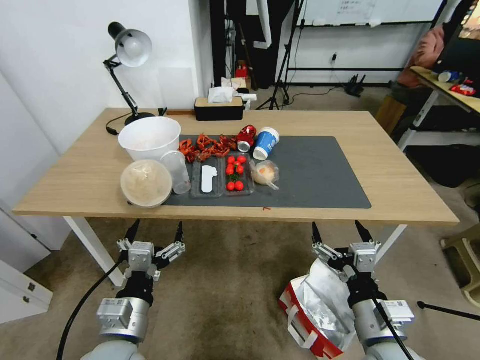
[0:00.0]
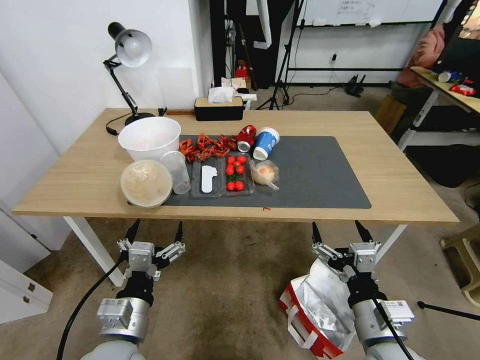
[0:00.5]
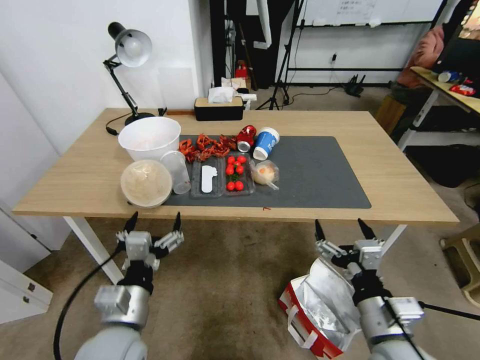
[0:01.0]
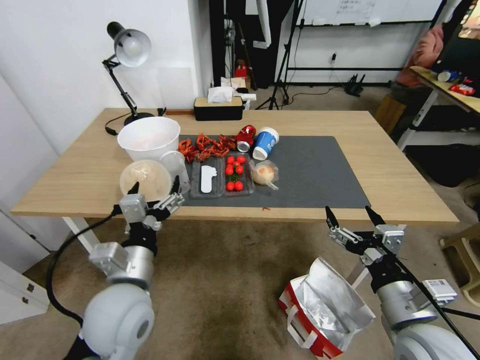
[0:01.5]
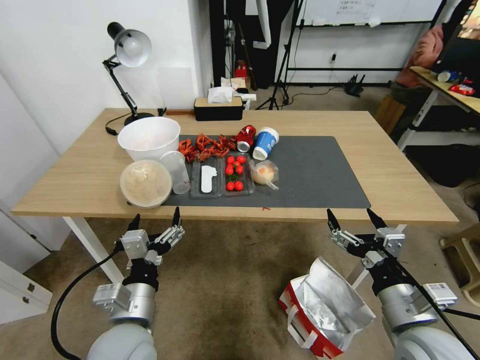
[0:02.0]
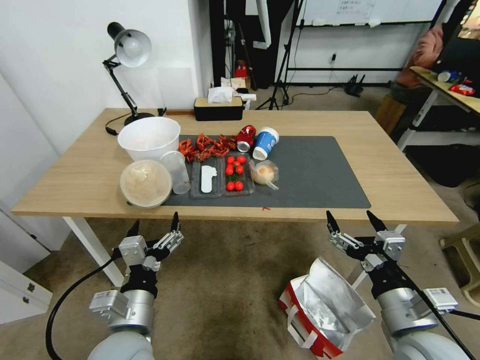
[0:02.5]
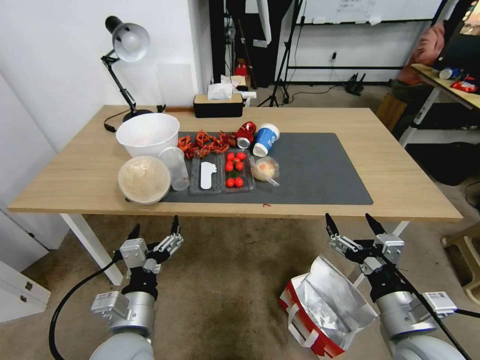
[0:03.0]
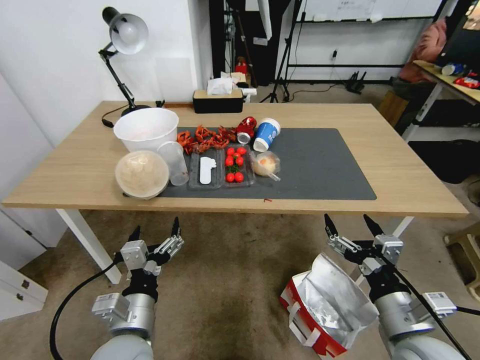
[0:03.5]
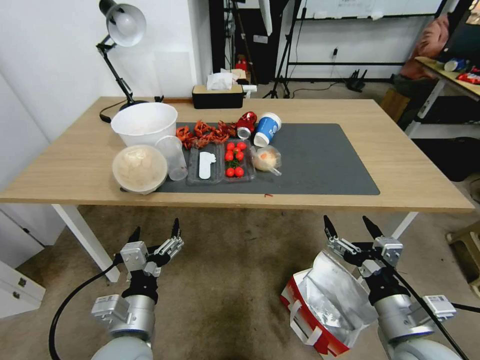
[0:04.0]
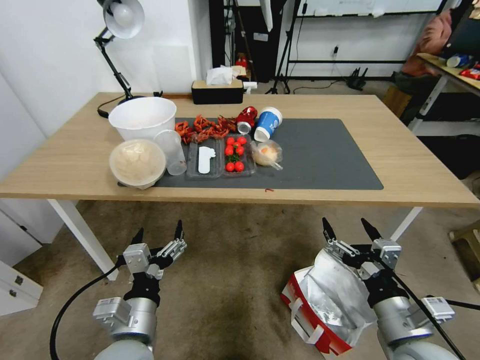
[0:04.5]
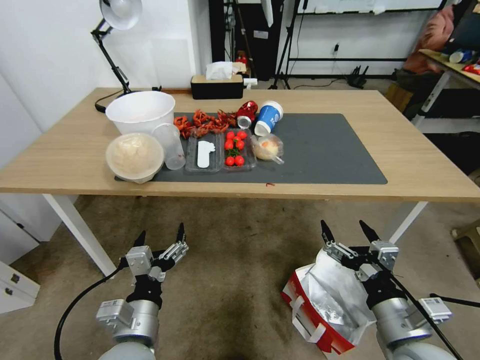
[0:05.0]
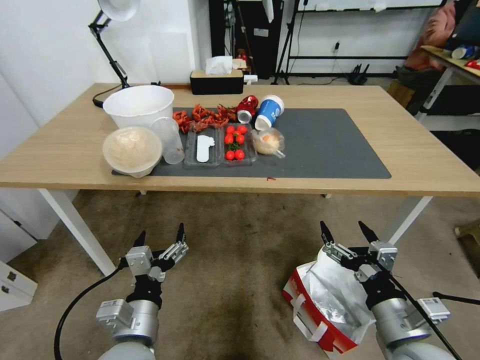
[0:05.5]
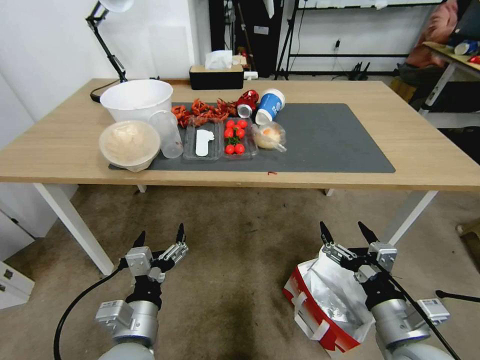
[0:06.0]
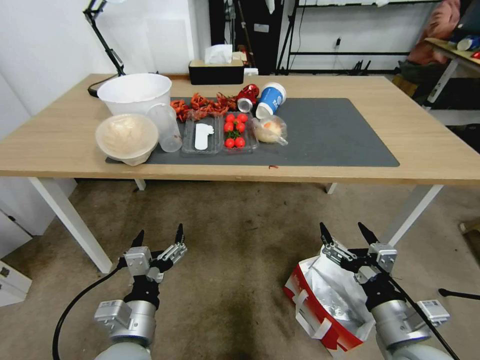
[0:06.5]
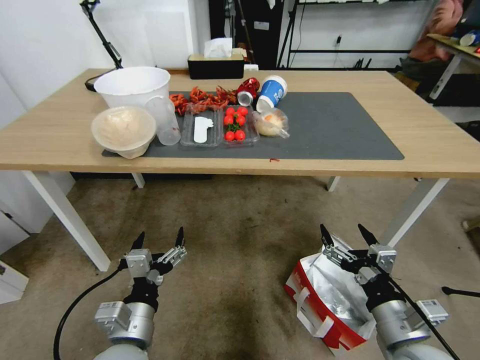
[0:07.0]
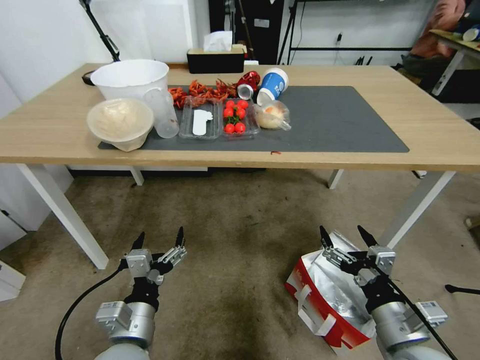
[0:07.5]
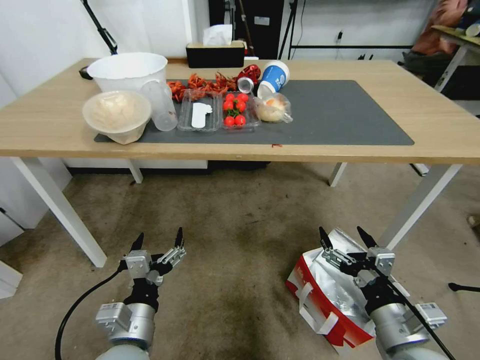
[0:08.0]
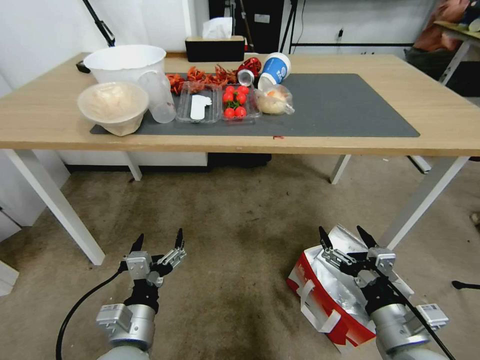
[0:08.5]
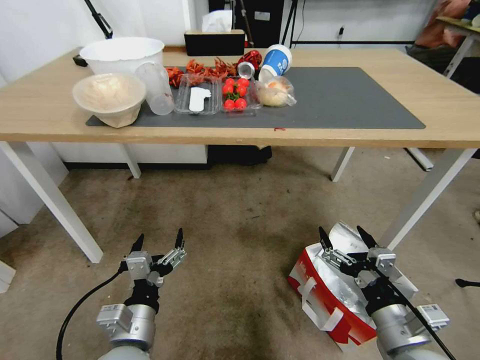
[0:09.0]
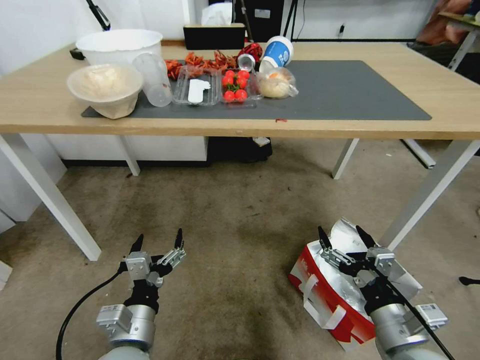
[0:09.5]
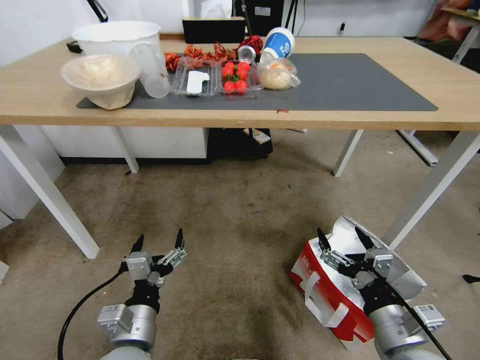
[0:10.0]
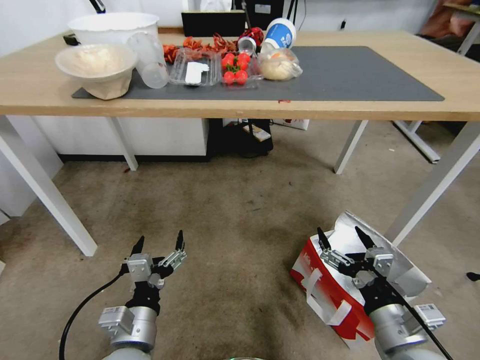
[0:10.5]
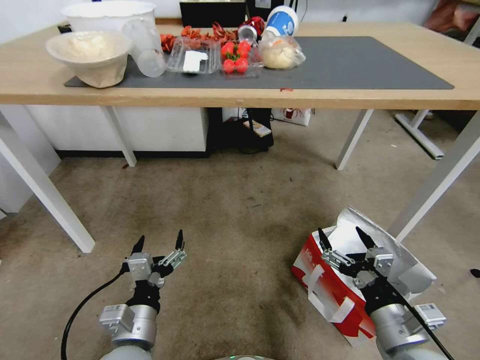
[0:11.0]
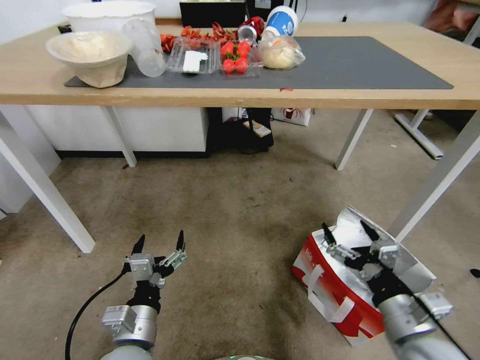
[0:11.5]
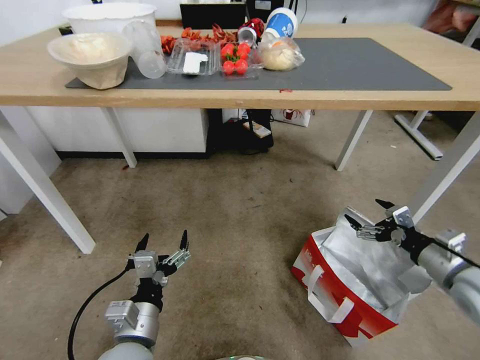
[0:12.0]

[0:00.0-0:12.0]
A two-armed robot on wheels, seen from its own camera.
Task of the whole recording: Pick up the food delivery bag from the floor and place it on the table.
0:10.0 to 0:12.0: The right gripper is displaced to the right and forward by roughly 20 cm.

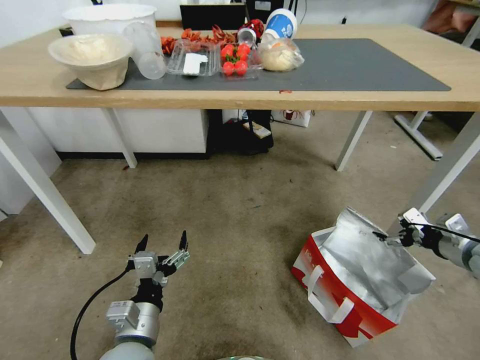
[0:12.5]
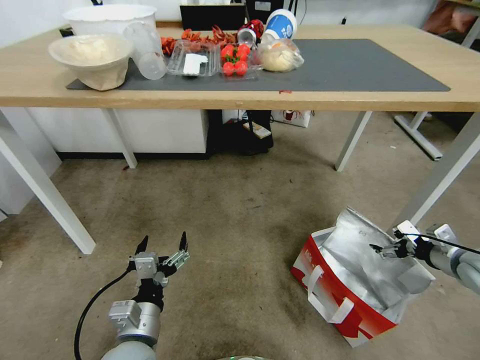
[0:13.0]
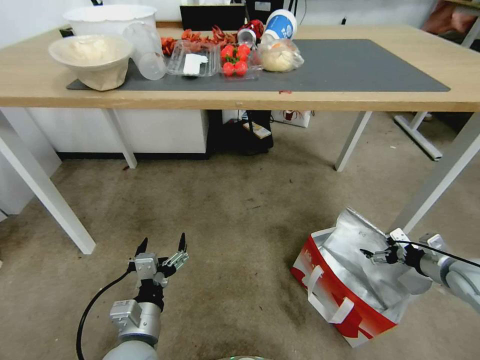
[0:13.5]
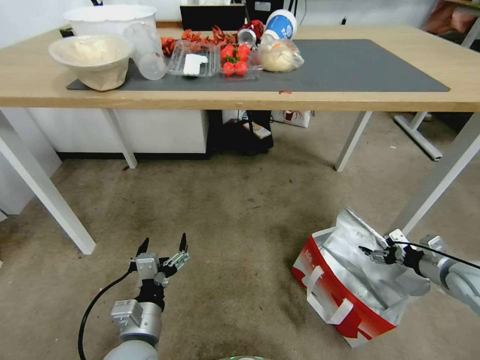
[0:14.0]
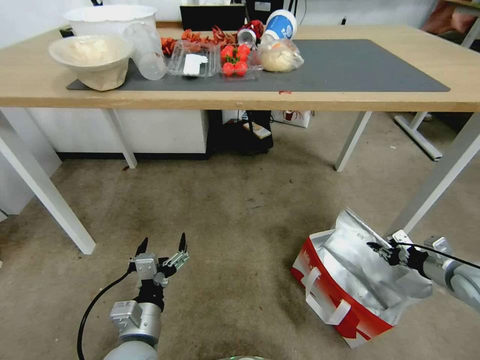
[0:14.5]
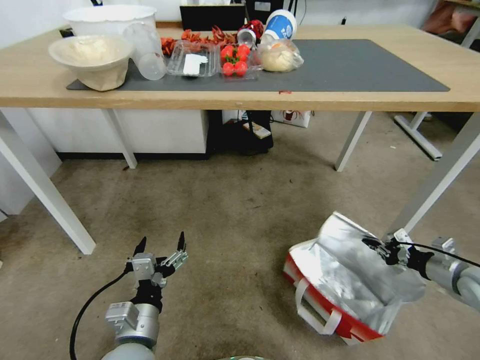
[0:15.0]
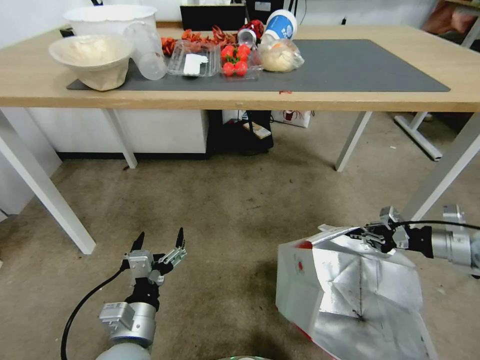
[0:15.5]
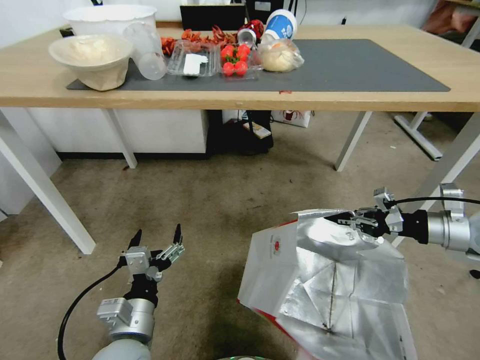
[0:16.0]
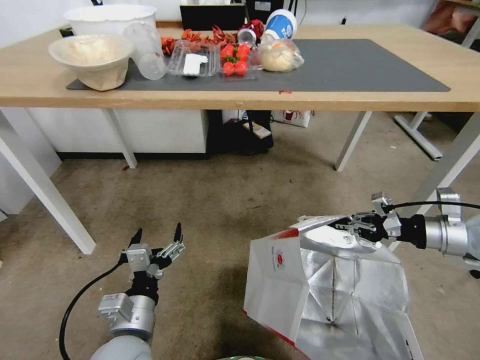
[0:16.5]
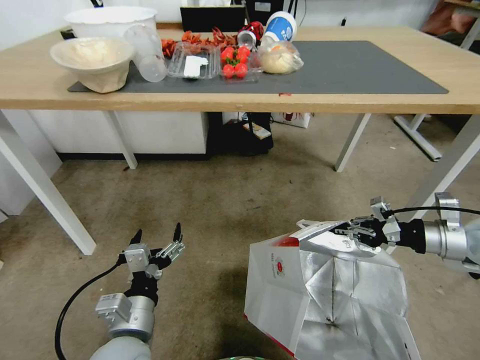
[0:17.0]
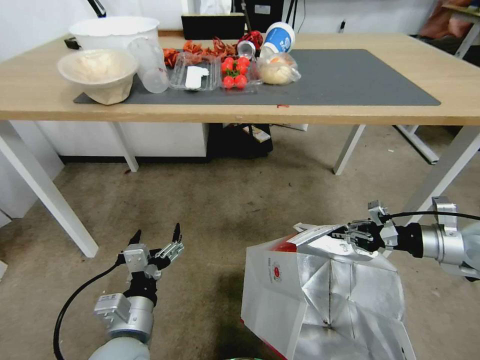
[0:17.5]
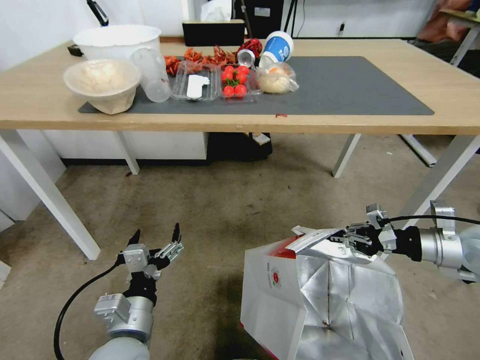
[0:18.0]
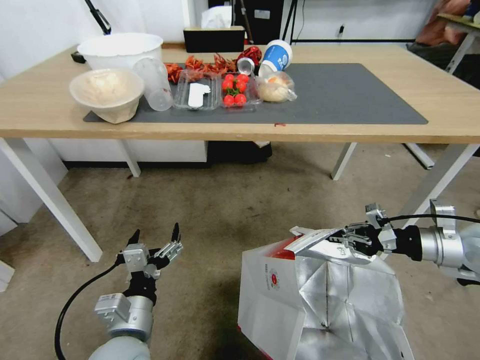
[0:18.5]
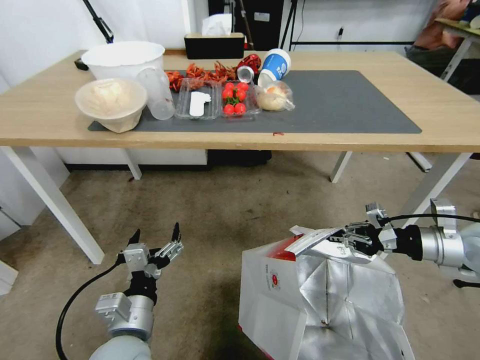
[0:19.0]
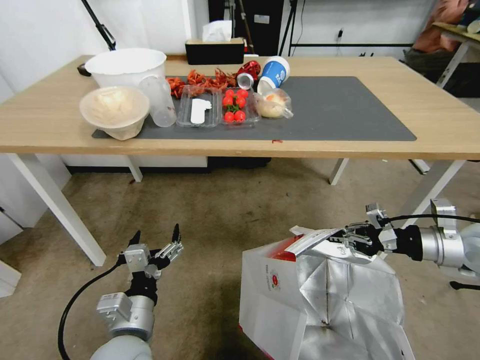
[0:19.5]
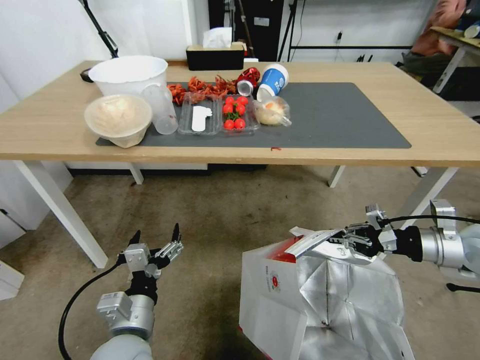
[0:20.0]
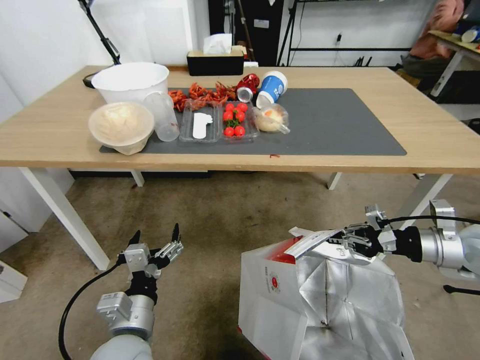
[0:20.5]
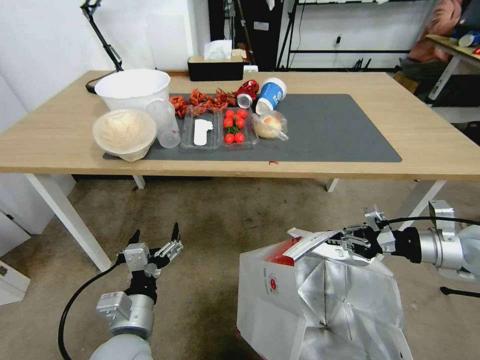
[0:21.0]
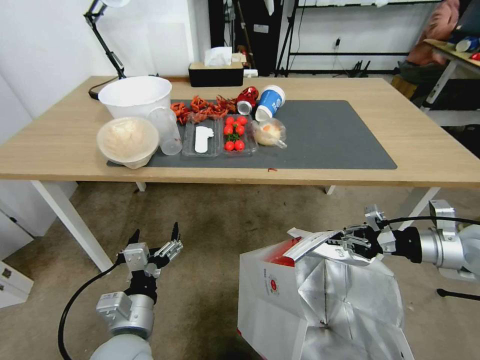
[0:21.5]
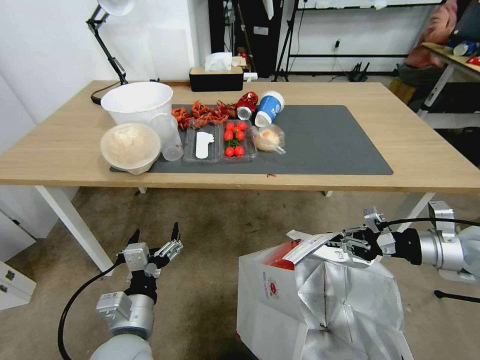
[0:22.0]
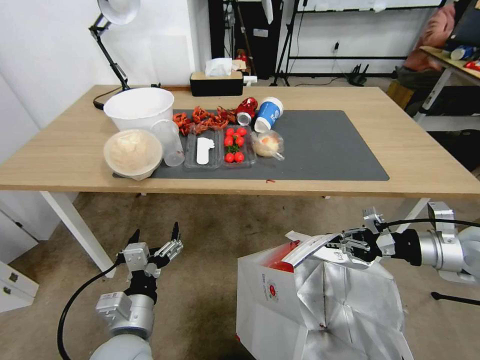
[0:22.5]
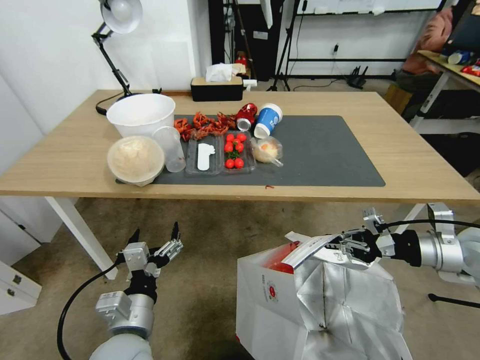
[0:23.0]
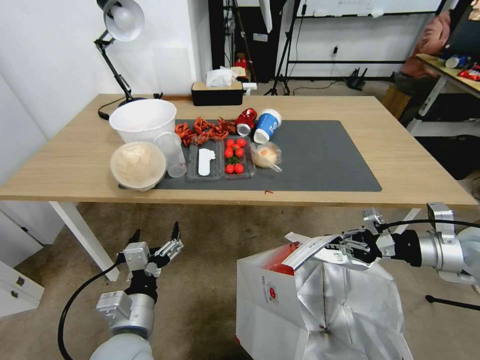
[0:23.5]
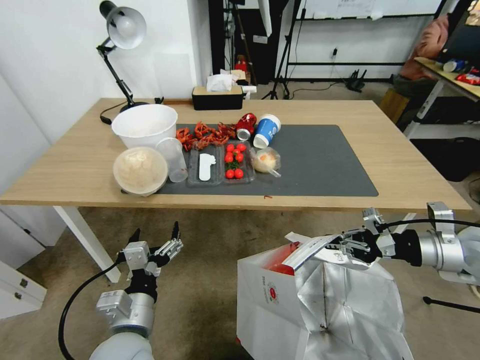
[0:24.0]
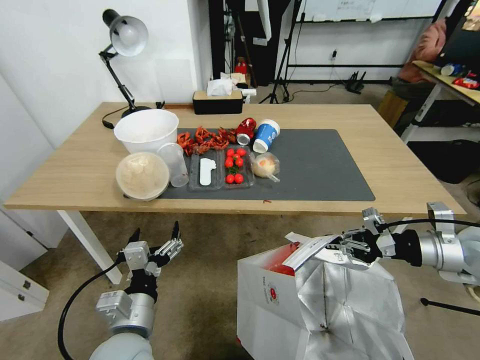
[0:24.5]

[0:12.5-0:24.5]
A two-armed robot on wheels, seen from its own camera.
Task of the whole recording: Pick up the food delivery bag from the floor and place it on the table.
0:12.5 to 0:14.5: The right gripper heads downward, covering about 10 cm, and closes up.
0:14.5 to 0:16.5: The right gripper heads upward and to the left, covering about 15 cm.

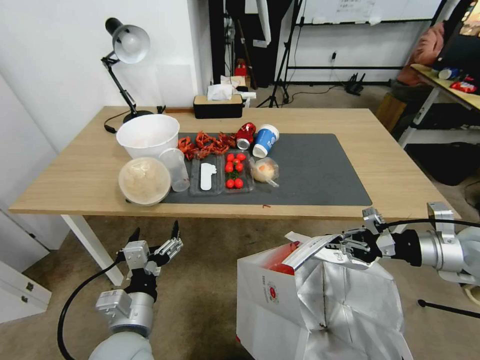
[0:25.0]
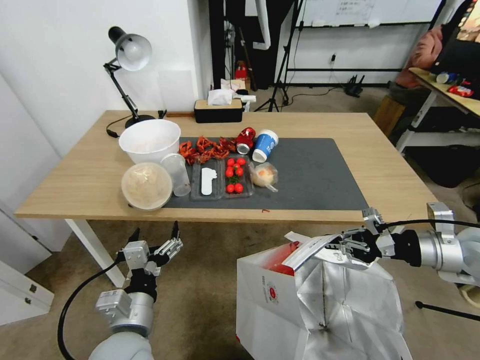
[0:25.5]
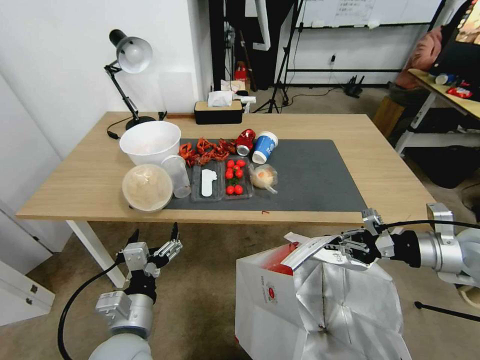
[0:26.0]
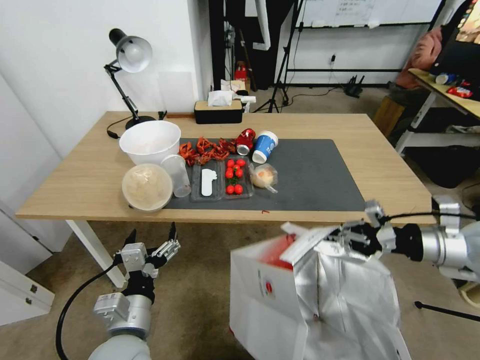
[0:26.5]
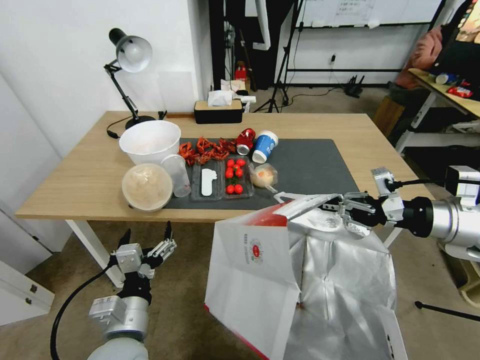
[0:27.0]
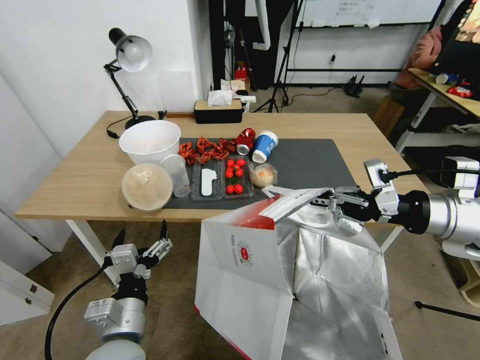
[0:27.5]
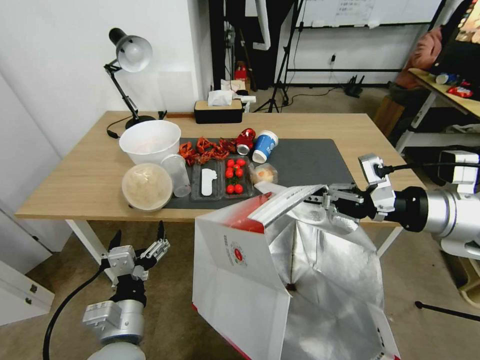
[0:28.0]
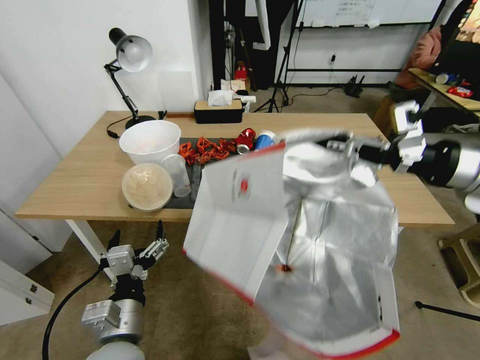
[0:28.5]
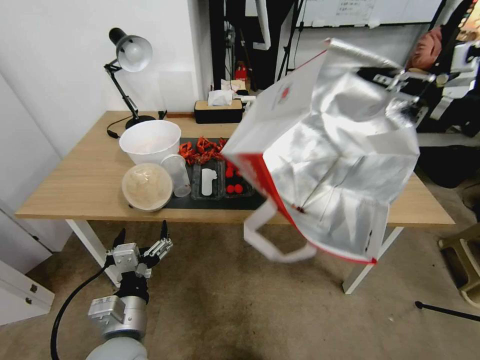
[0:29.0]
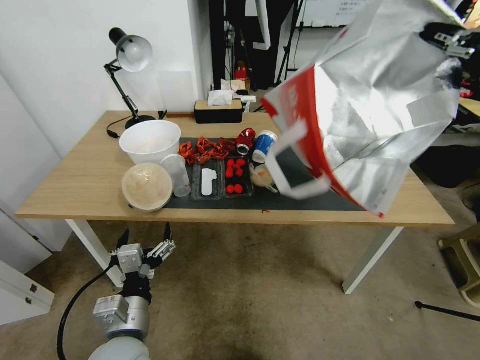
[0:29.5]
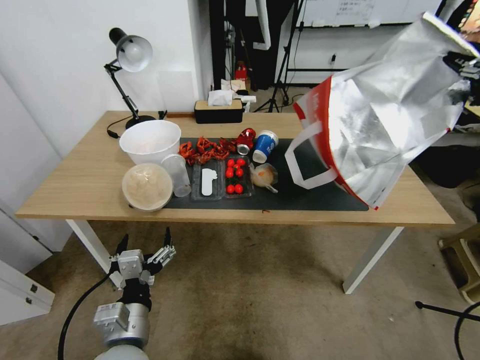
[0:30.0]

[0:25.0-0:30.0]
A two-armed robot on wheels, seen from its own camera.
Task of the whole recording: Pick up the food delivery bag from the floor and place it on the table.
0:25.0 to 0:27.5: The right gripper heads upward and to the left, covering about 10 cm.
0:27.5 to 0:30.0: The right gripper shifts approximately 15 cm upward and to the right.
